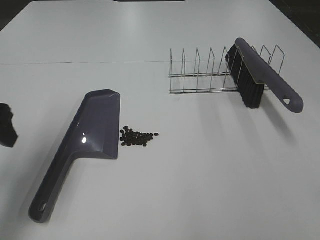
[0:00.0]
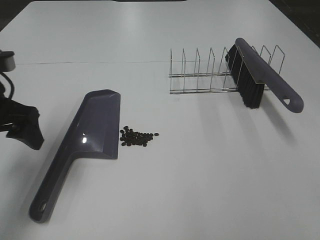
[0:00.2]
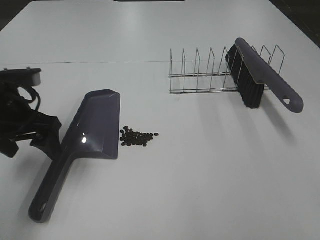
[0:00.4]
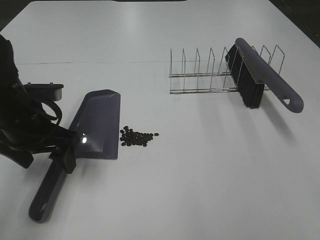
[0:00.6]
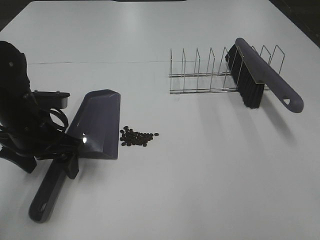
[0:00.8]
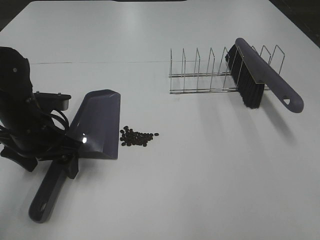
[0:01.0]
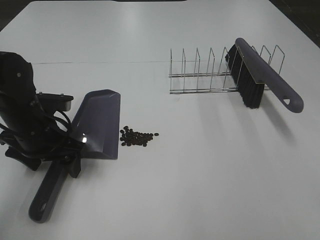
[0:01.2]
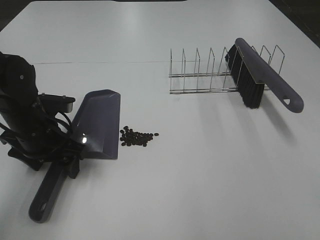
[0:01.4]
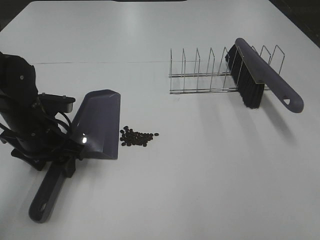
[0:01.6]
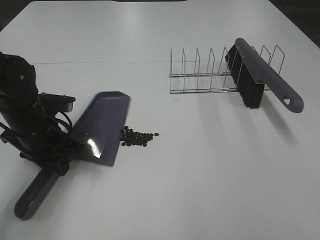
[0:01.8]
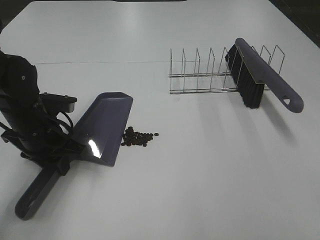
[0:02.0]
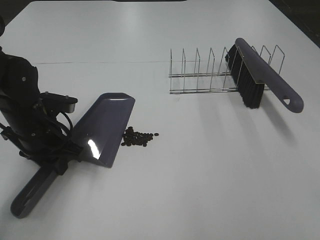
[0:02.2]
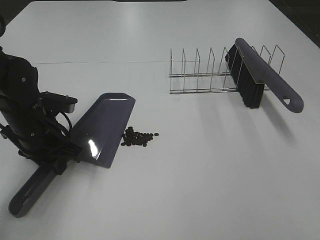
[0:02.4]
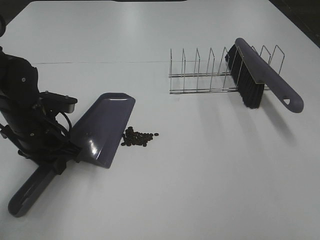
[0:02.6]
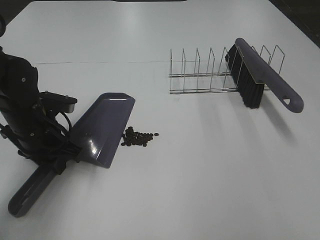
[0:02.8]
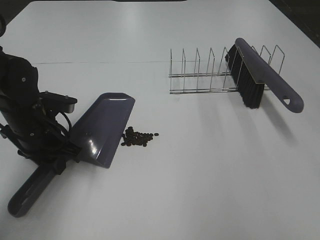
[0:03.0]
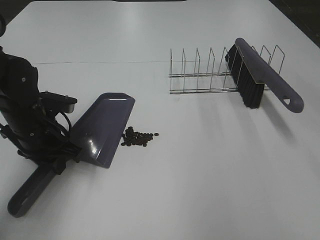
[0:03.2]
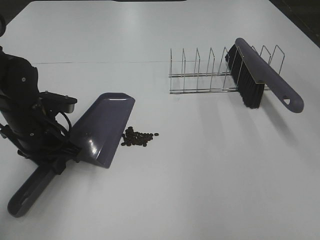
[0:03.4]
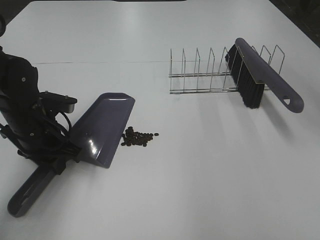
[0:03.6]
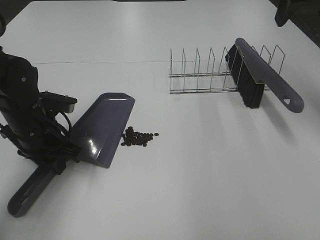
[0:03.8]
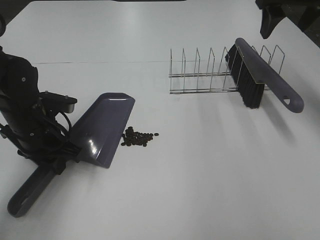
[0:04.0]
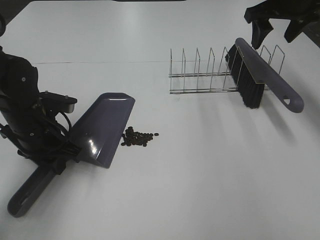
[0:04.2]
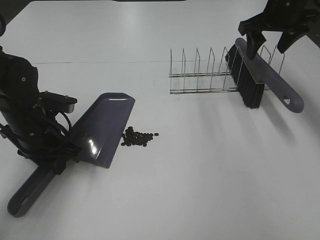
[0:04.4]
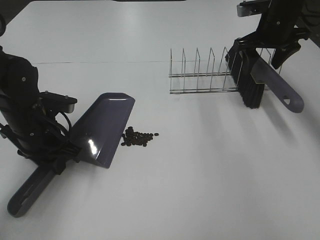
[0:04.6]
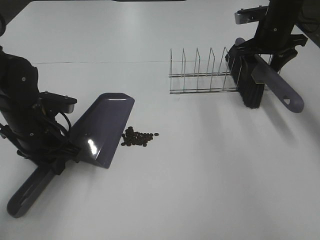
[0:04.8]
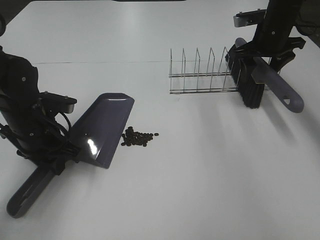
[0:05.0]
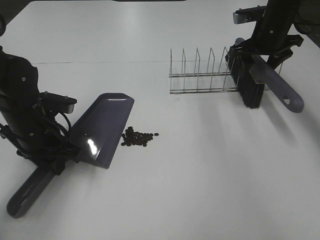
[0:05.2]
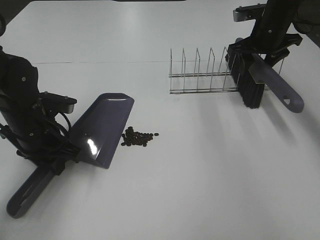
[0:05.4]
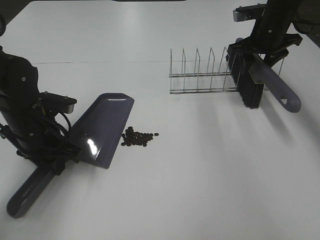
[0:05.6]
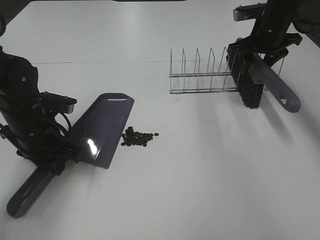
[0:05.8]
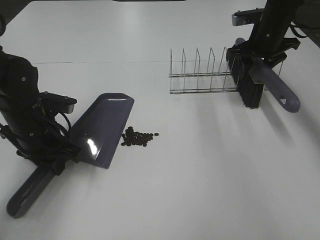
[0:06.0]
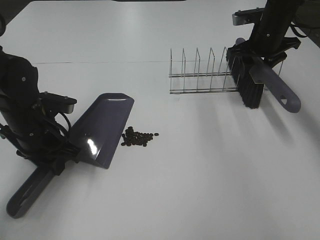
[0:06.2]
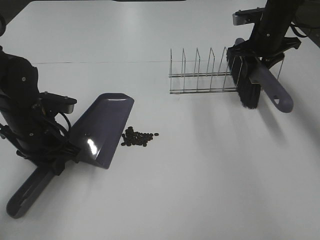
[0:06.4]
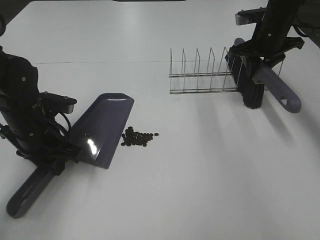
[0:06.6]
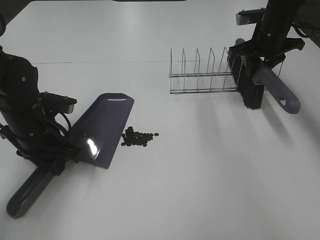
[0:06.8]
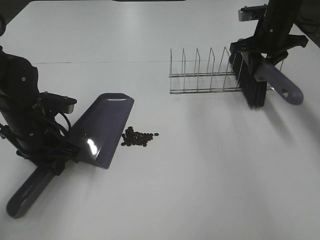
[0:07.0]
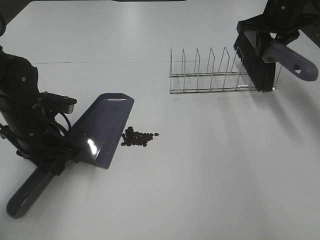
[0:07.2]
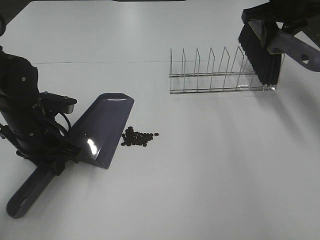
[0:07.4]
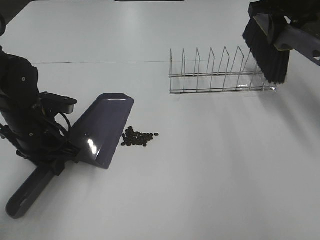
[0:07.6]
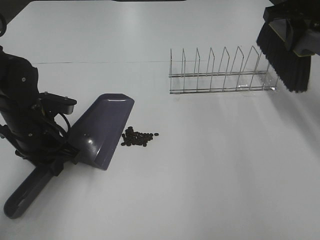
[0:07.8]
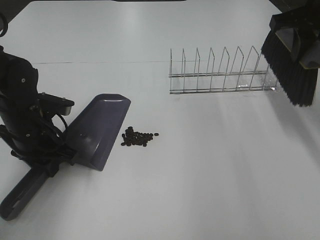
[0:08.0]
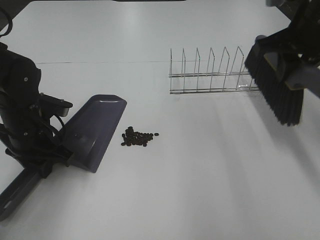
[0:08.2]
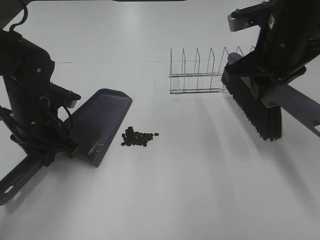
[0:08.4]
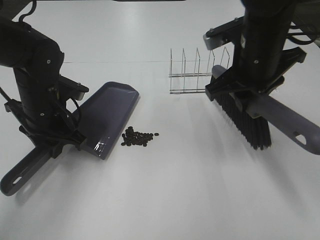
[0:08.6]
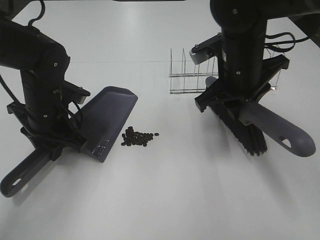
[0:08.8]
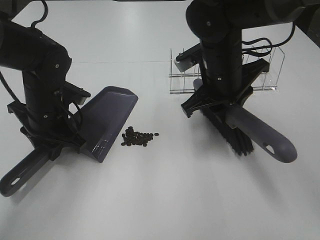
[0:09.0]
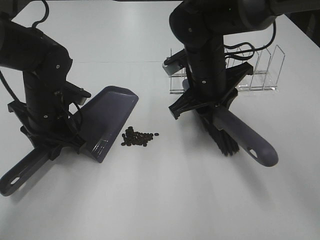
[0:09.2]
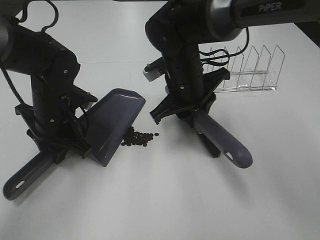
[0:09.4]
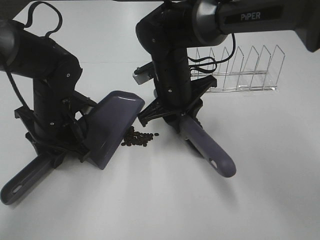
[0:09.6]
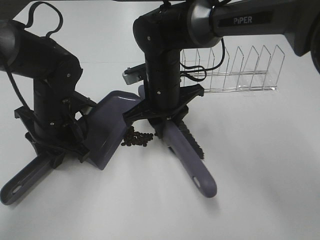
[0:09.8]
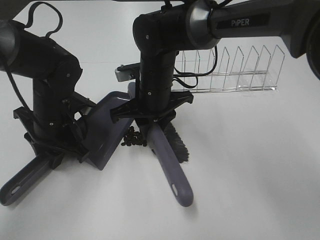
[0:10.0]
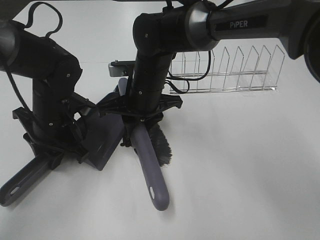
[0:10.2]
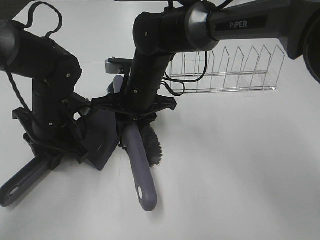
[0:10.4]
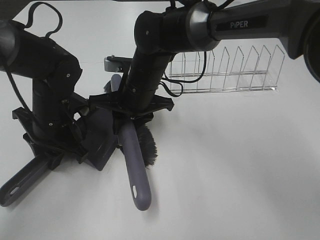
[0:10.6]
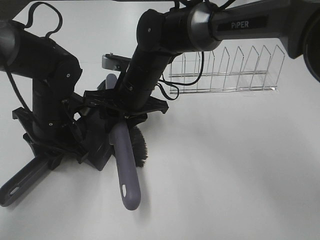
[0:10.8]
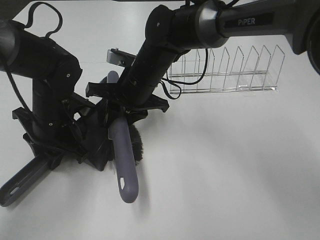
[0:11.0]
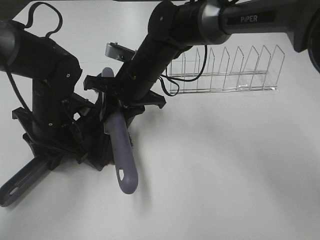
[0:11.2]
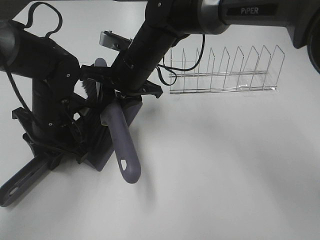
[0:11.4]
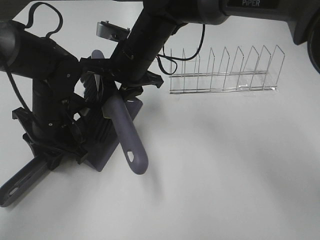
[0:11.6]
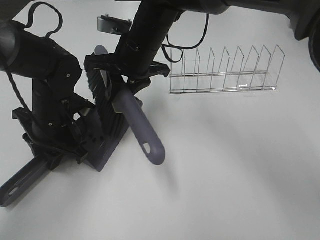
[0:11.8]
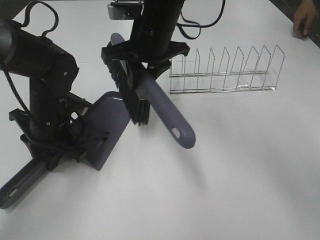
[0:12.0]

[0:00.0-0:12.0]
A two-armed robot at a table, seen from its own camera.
Task of the whole recording: Sweep Coffee Bean.
Step, 0:00.0 to 0:02.0: Left hand: grab the dustpan.
Step, 0:02.4 to 0:06.6: Right hand:grab the broom.
Step, 0:06.8 to 0:11.8: Right hand:sweep the coffee beans into the dustpan.
0:00.0 to 0:01.6: The left gripper goes about 15 cm downward, to the right and forward.
0:01.6 to 0:03.0: The right gripper is displaced forward and upward by roughly 20 cm. Meanwhile the left gripper closes.
0:03.0 to 0:04.4: The right gripper shifts about 35 cm forward and downward.
0:04.4 to 0:06.0: The right gripper moves downward, some 5 cm.
0:06.0 to 0:07.6: The right gripper heads upward, covering some 10 cm, and closes its fingers.
0:07.6 to 0:09.0: The right gripper shifts roughly 20 cm to the left, downward and backward.
0:09.0 to 0:10.4: The right gripper shifts about 10 cm to the left.
0:10.4 to 0:12.0: The right gripper is displaced upward by roughly 10 cm.

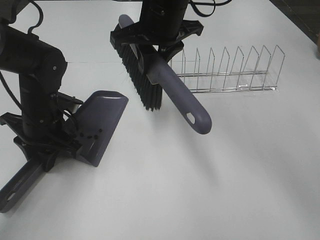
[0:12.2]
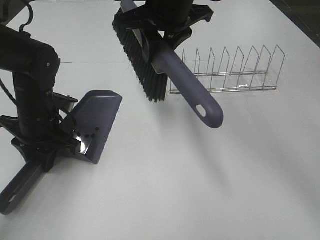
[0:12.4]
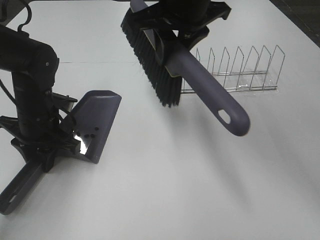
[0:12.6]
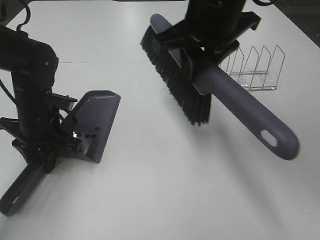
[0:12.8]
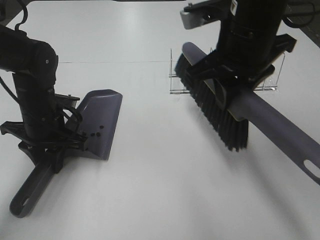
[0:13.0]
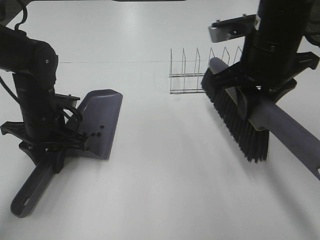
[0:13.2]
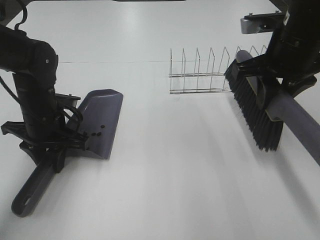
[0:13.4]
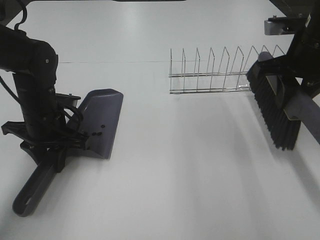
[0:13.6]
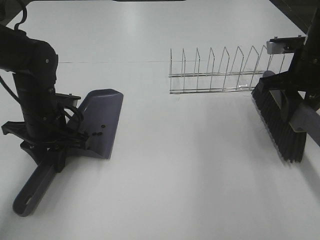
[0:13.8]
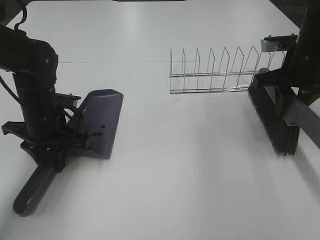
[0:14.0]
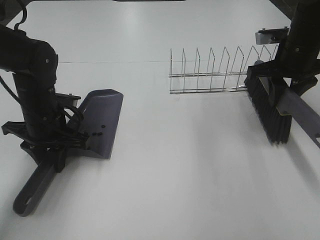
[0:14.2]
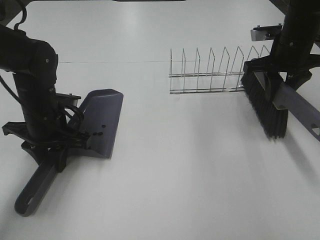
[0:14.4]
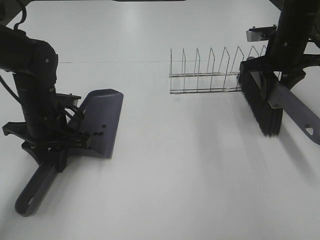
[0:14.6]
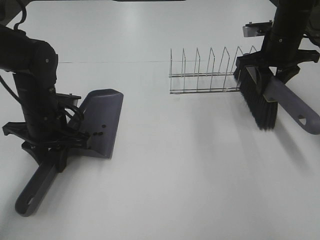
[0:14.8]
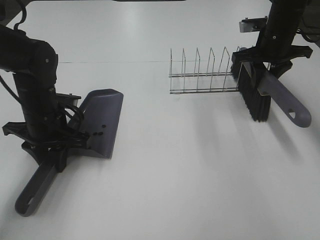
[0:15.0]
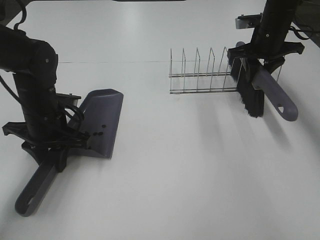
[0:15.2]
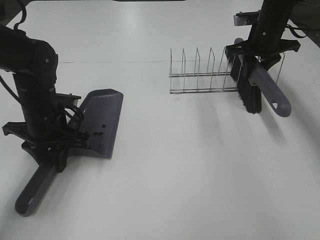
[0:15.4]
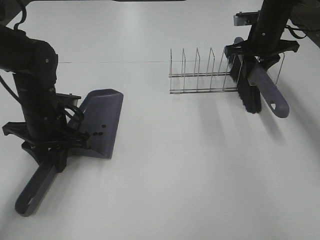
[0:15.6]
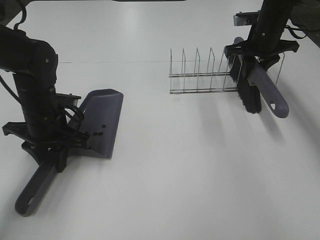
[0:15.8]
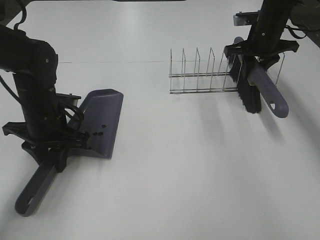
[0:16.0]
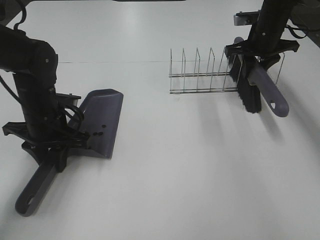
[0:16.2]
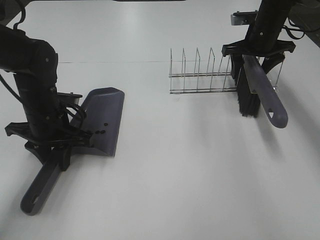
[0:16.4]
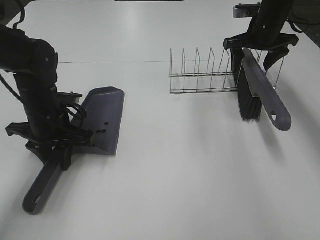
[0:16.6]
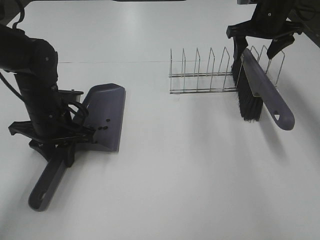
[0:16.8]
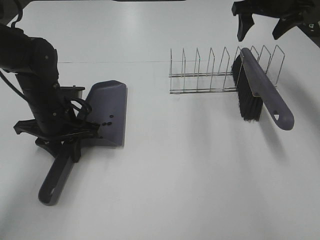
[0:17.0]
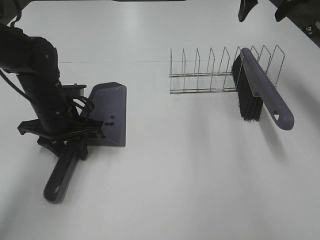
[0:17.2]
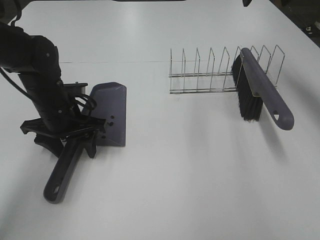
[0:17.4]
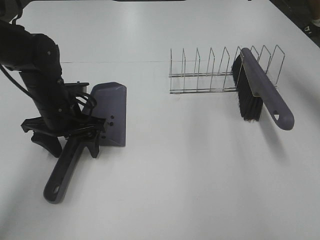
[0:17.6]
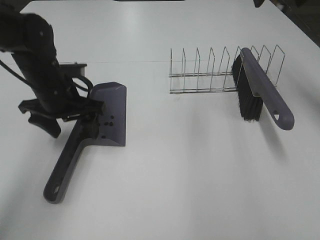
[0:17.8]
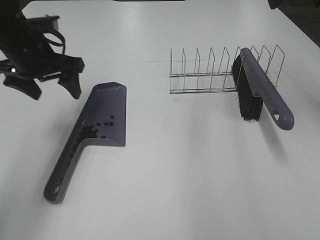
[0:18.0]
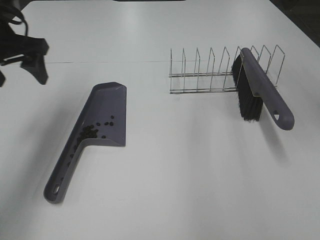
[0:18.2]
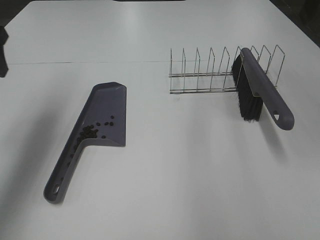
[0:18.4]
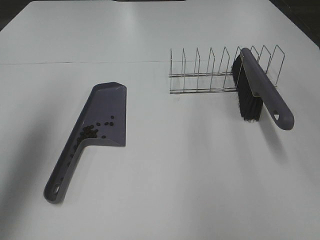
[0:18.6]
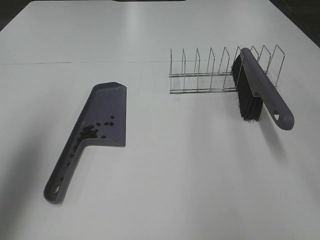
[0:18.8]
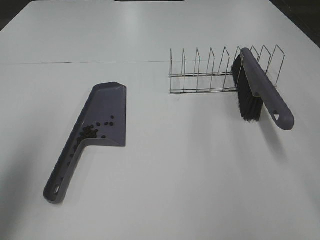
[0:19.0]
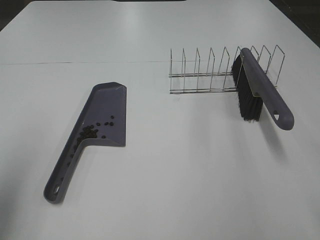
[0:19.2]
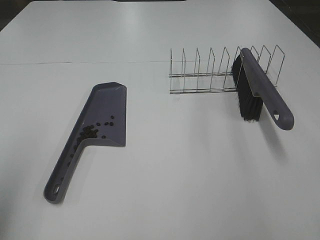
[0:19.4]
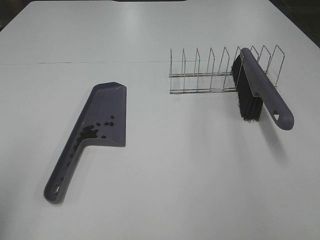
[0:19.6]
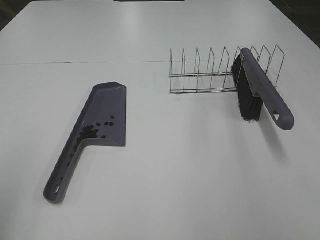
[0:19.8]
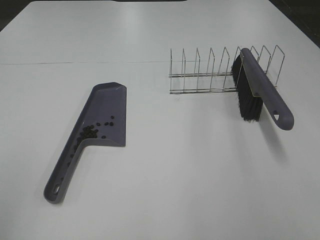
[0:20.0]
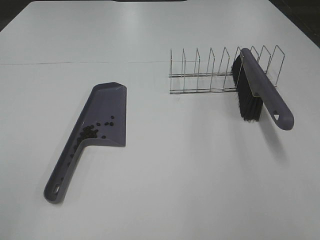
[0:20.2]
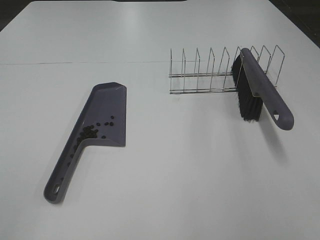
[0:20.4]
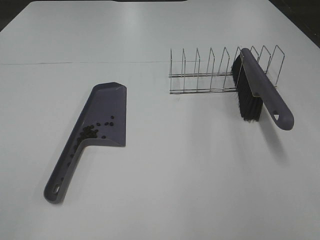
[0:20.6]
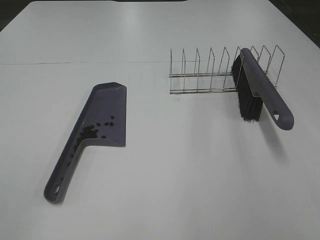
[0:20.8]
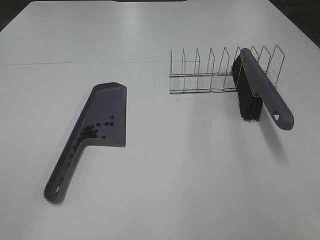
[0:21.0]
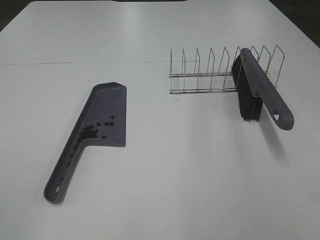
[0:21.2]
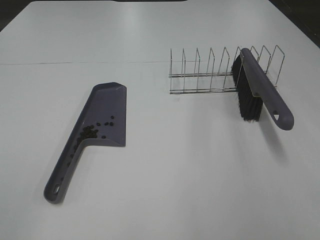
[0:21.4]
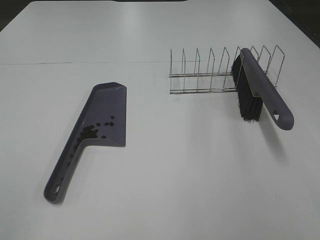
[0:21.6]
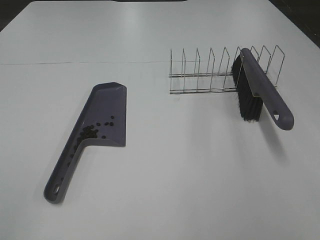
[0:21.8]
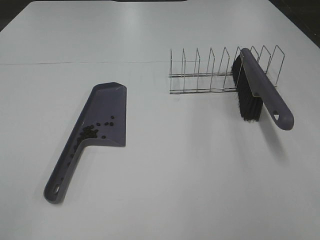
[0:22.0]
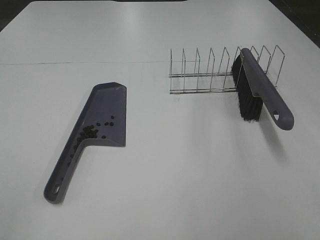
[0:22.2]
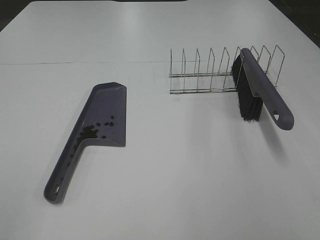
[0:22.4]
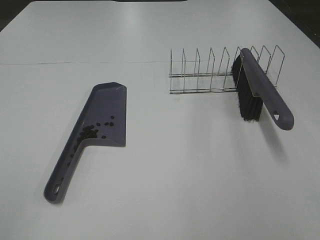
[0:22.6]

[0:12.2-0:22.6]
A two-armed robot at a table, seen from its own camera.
Task of the whole recording: Sweep Coffee Bean.
Step, 0:12.2 to 0:16.6: Right hand:place the broom on the rack.
0:12.2 to 0:13.6: The right gripper goes approximately 25 cm to the right.
0:13.6 to 0:15.2: The right gripper heads forward, covering about 15 cm.
0:15.2 to 0:16.6: The right gripper opens.
0:16.6 to 0:18.2: The left gripper moves upward and to the left, about 20 cm, and opens up. The right gripper is displaced upward and backward by roughly 25 cm.
0:18.2 to 0:19.6: The left gripper travels backward by some 25 cm.
